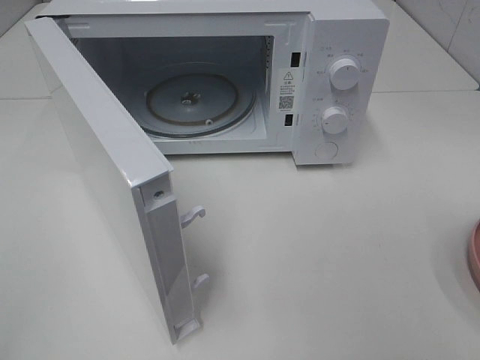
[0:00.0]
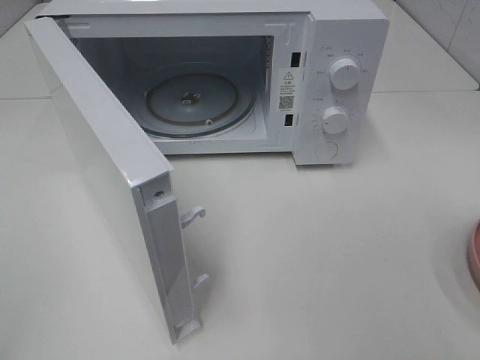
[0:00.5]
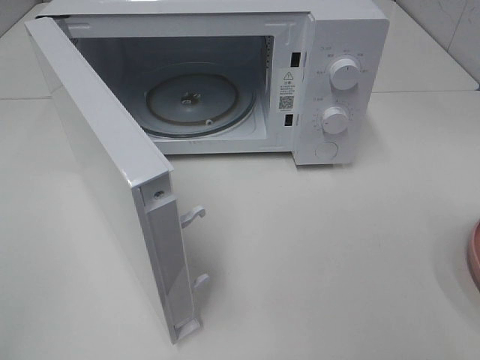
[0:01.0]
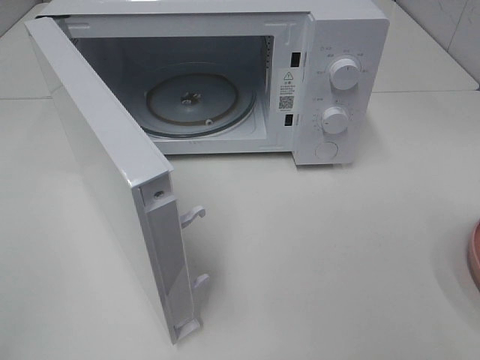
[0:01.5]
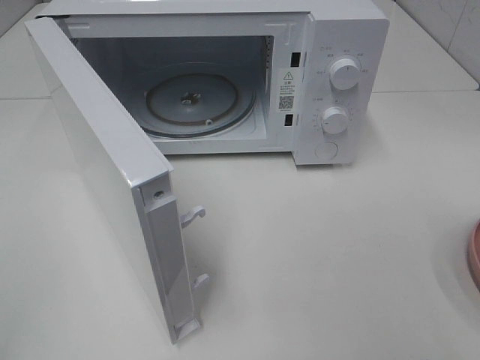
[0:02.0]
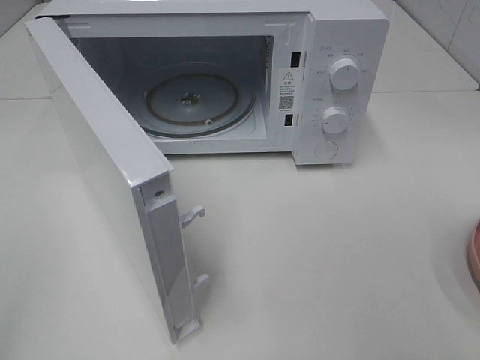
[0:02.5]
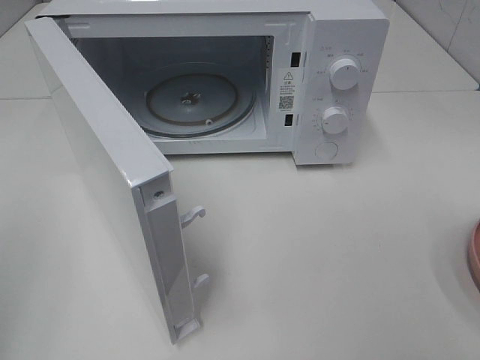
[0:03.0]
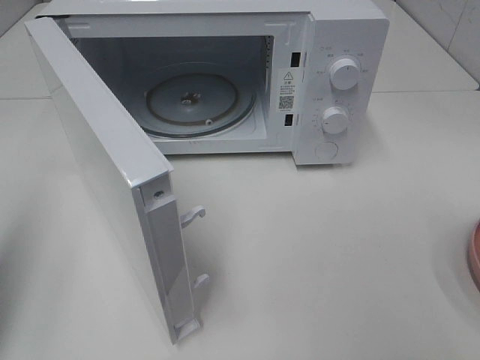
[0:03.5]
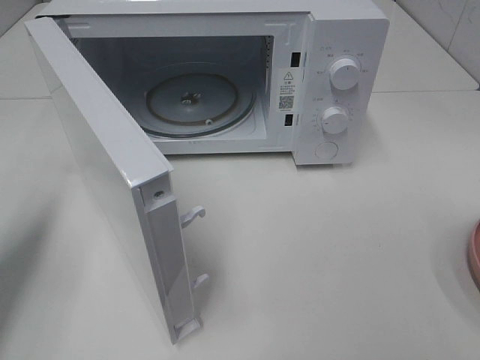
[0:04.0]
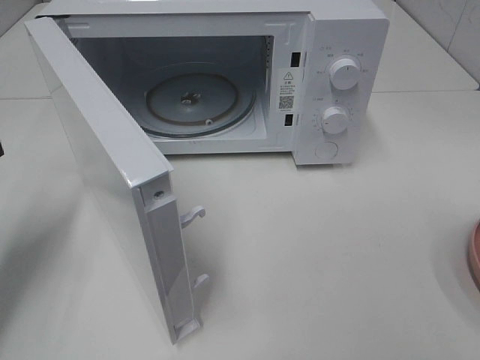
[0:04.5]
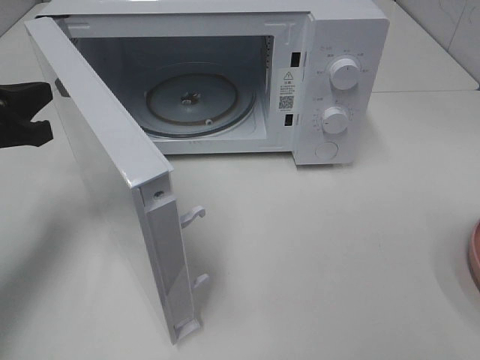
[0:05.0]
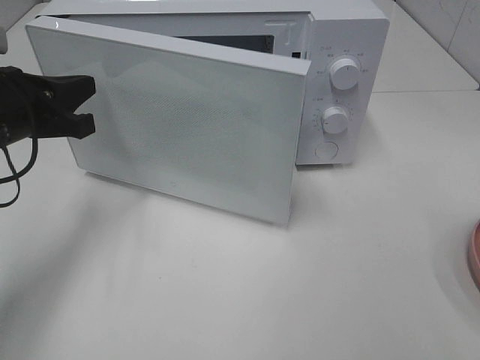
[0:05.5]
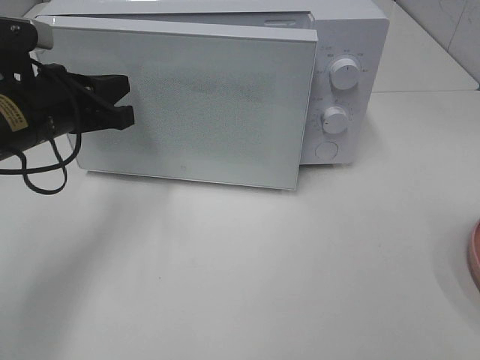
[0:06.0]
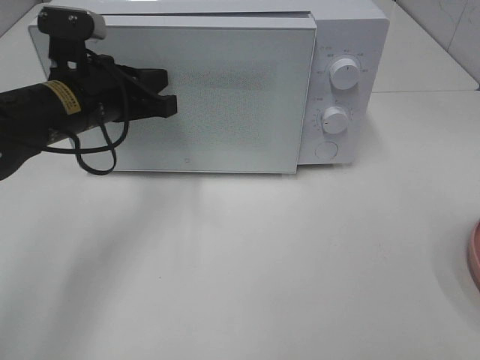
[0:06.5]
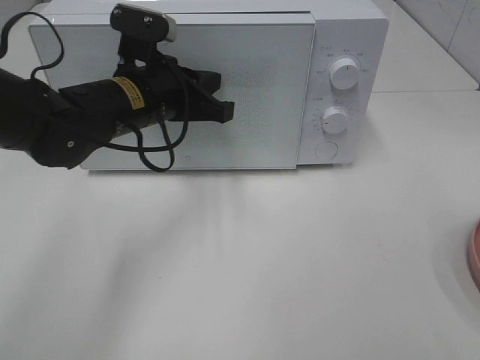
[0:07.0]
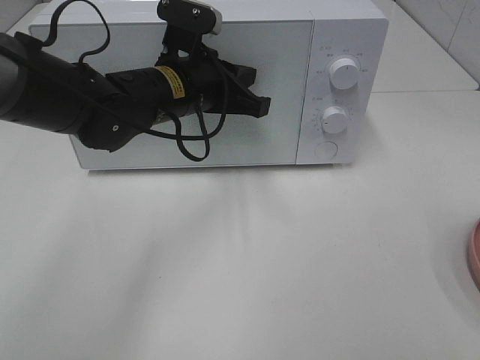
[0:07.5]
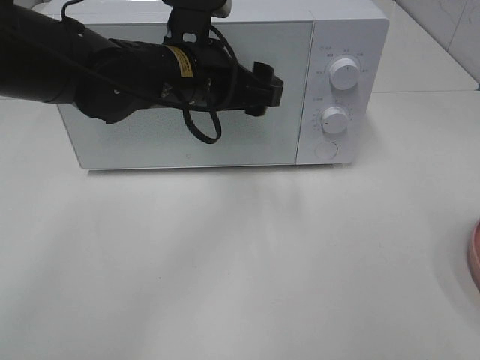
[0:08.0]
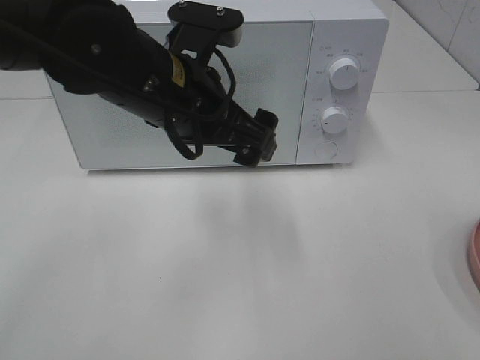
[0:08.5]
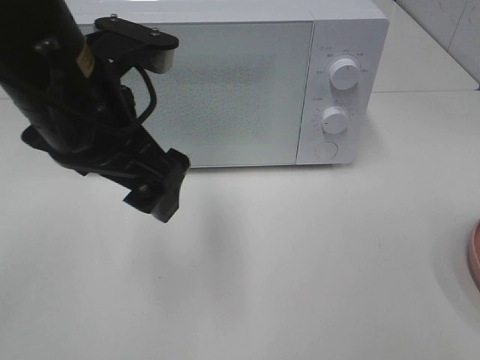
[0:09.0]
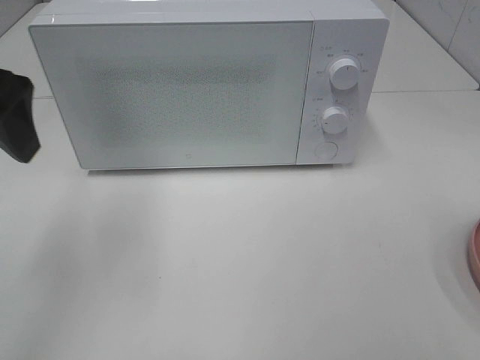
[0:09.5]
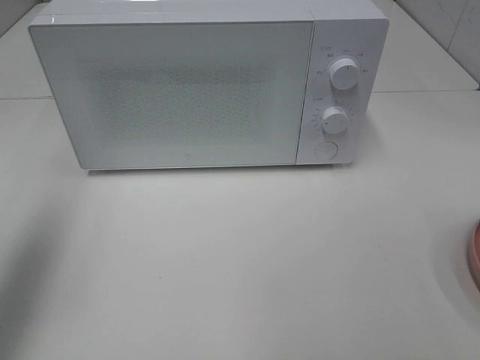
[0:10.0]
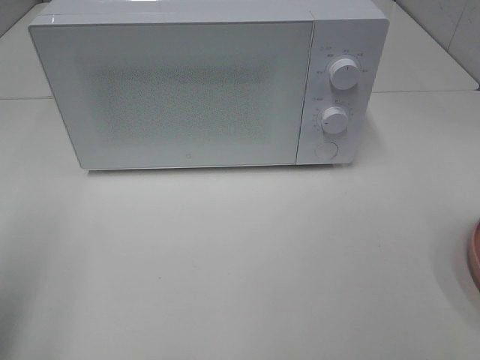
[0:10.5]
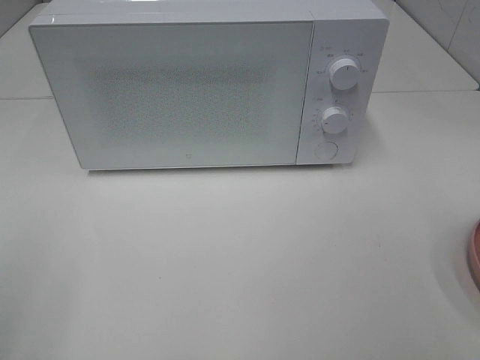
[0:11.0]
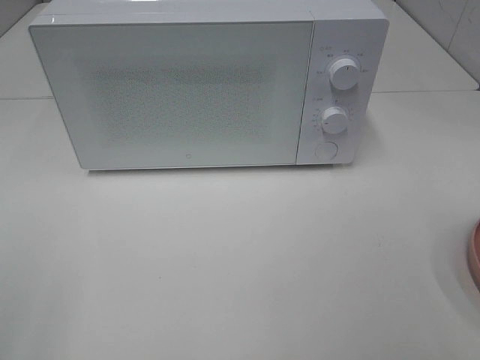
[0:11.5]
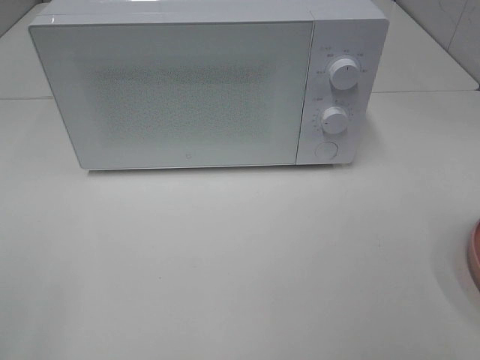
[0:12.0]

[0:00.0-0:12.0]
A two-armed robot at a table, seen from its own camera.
Task of the whole recording: Heat the burger.
Step, 0:00.0 to 0:07.0: Left hand: close the microwave door.
0:02.0 to 0:04.0: The left gripper moves forward, roughly 20 cm, and closes.
0:04.0 to 0:06.0: The left gripper goes approximately 15 cm to the right and forward.
0:06.0 to 0:08.0: The left gripper is displaced to the right by some 15 cm, and opens.
0:08.0 to 0:10.0: The left gripper travels to the left, backward and upward by roughly 30 cm.
0:10.0 to 0:12.0: The left gripper shifts about 20 cm backward.

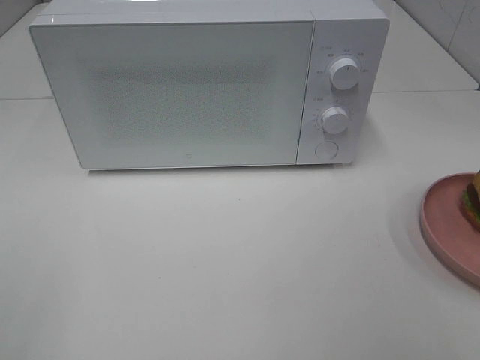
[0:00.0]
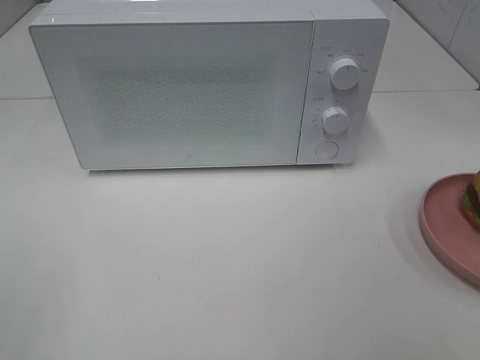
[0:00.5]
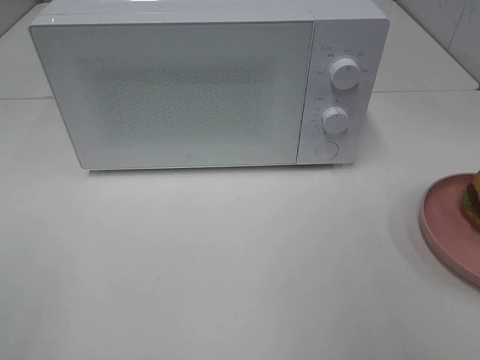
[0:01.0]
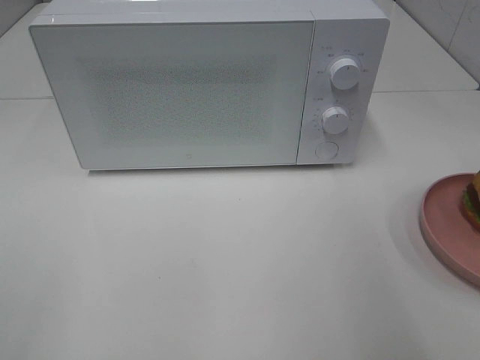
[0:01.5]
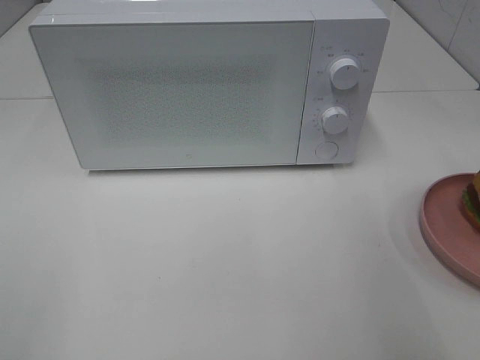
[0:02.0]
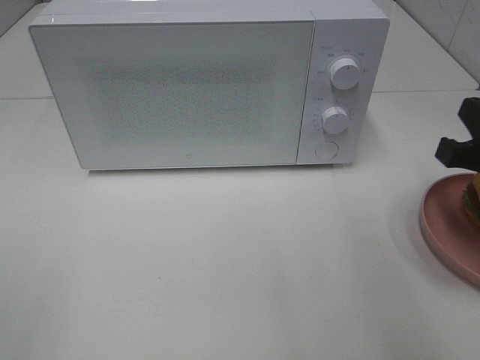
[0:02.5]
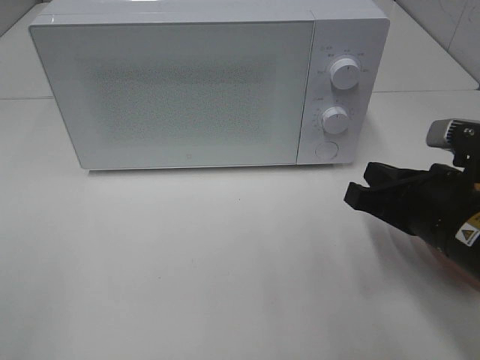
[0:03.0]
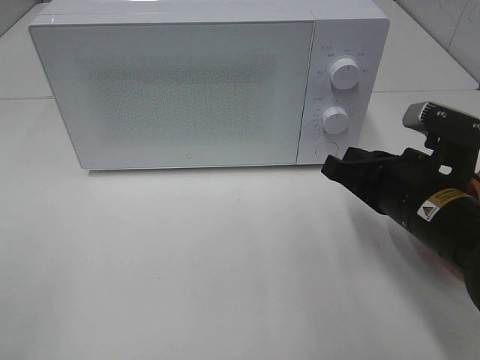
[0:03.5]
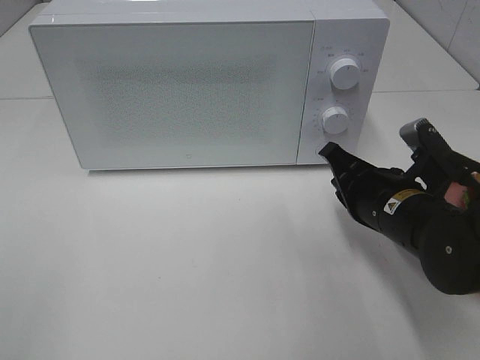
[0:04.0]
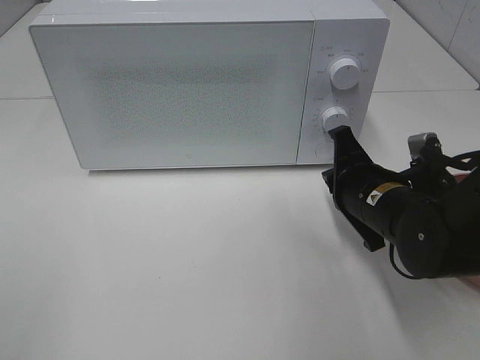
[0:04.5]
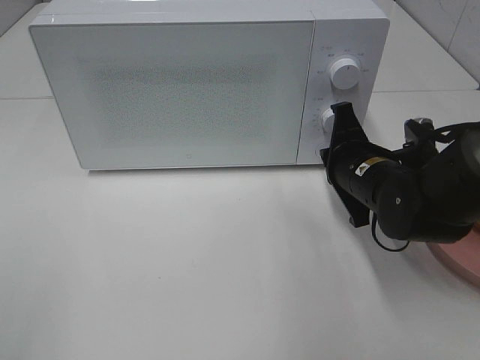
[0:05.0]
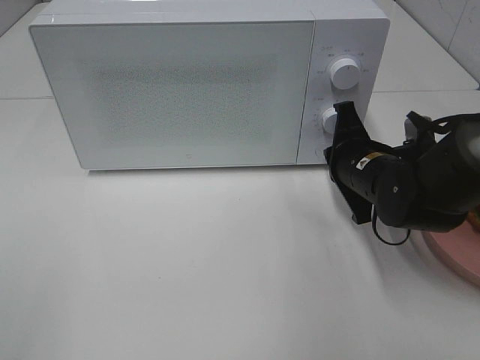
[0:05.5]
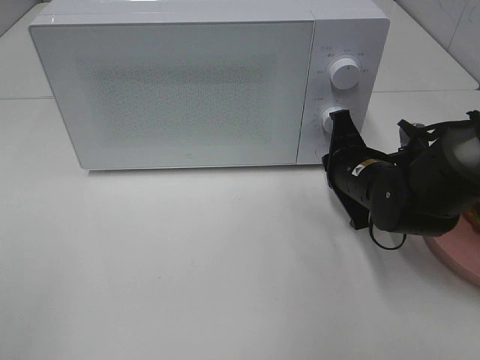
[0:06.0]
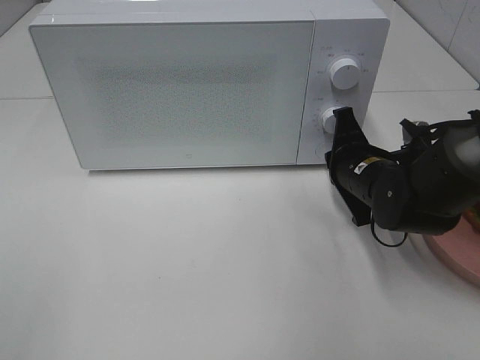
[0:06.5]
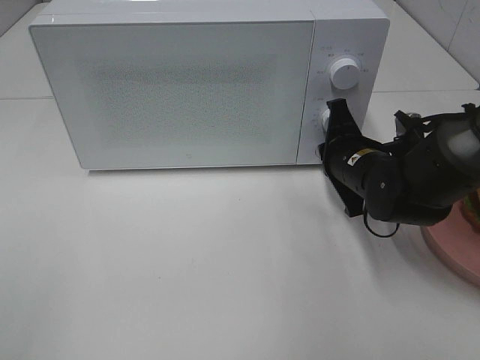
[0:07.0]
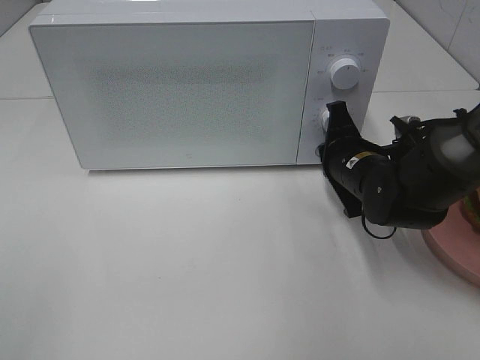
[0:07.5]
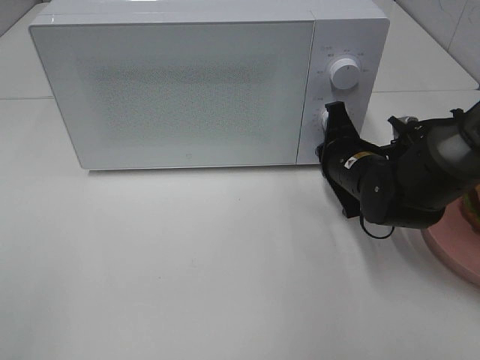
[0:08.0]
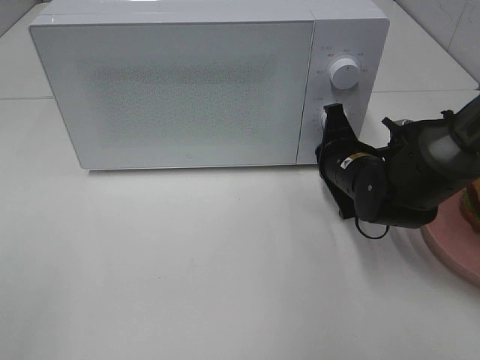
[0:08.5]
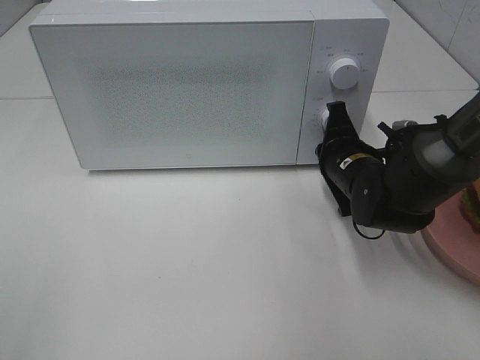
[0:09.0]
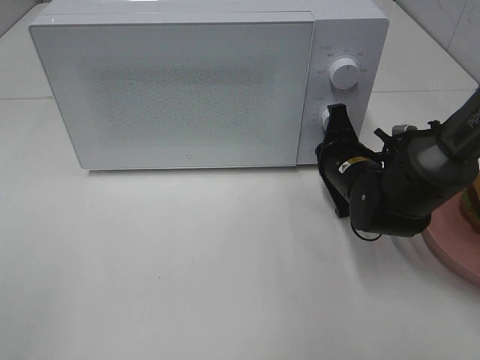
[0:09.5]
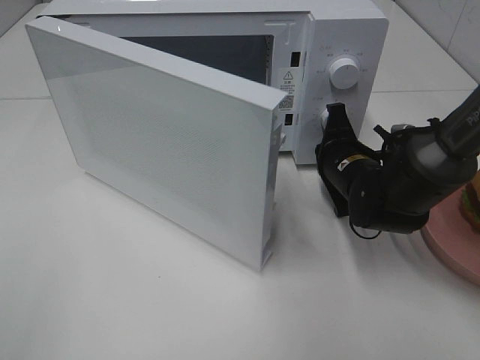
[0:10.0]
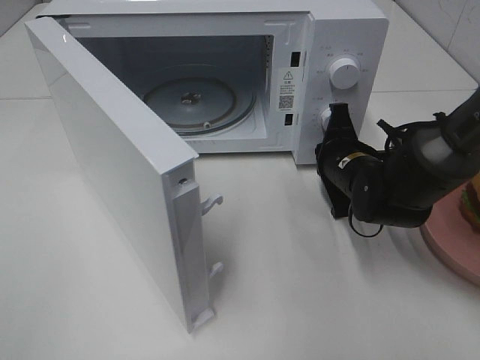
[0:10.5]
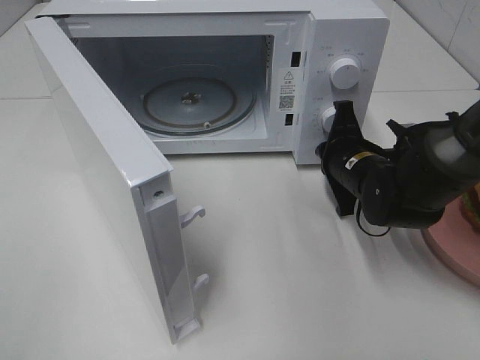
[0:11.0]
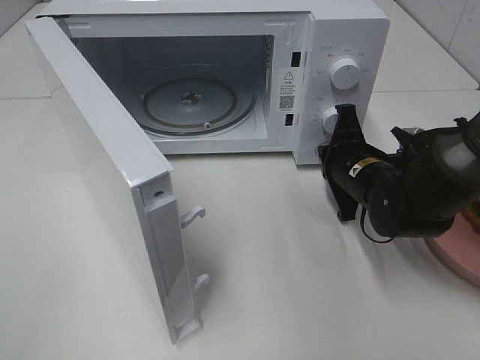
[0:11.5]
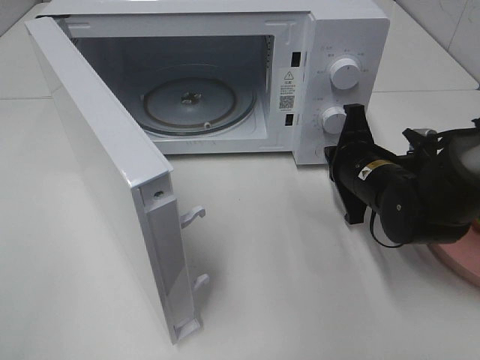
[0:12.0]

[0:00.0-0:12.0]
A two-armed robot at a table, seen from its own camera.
Task of the whole recording: Heat the burger.
Step, 0:00.0 to 0:11.5: Right hand: press the switch.
0:02.0 to 0:04.0: The right gripper goes approximately 20 cm downward, to the left and forward.
0:04.0 to 0:06.0: The right gripper goes about 5 cm forward.
0:06.0 to 0:10.0: The grippers move only a little.

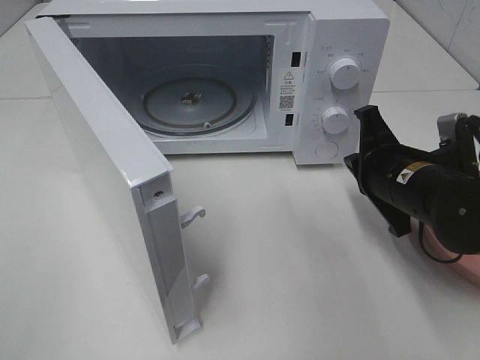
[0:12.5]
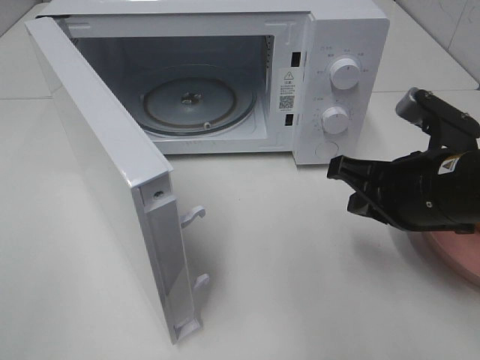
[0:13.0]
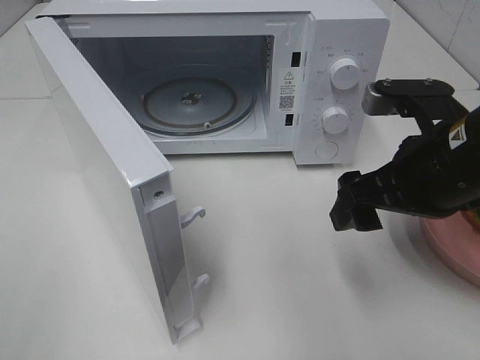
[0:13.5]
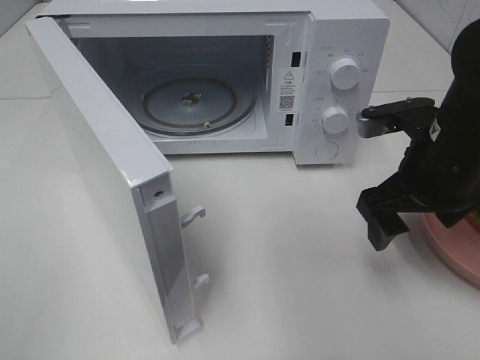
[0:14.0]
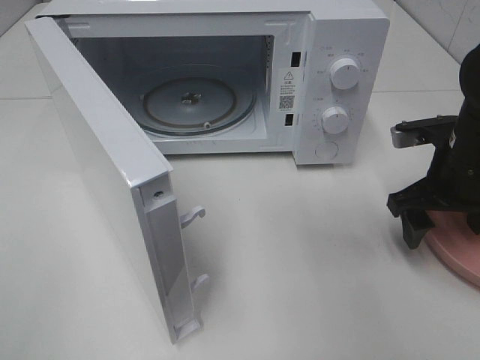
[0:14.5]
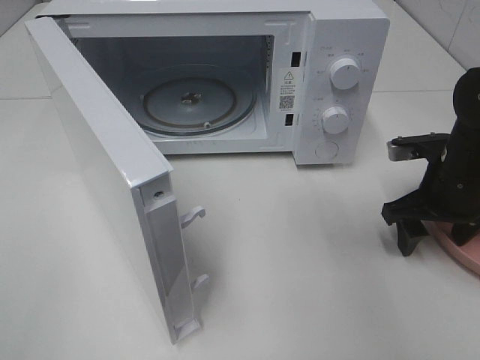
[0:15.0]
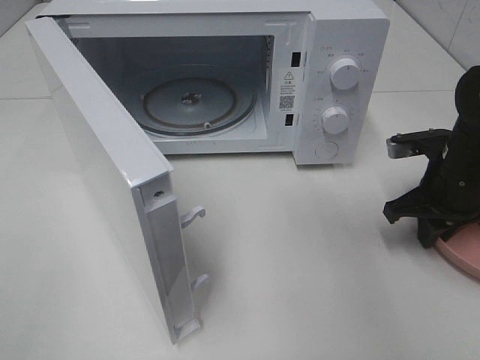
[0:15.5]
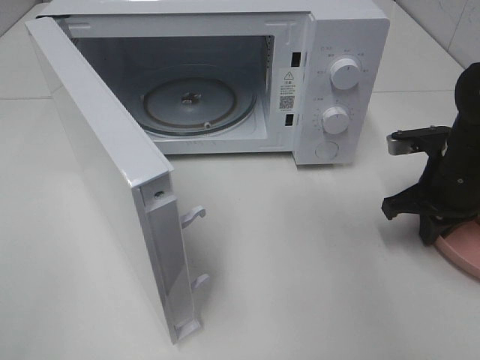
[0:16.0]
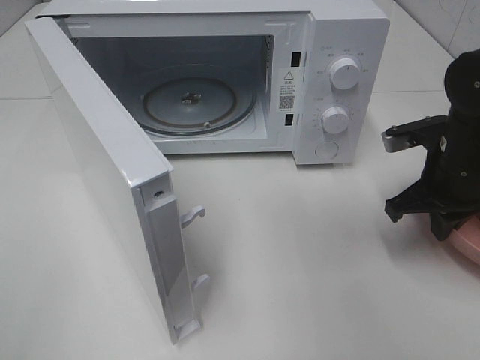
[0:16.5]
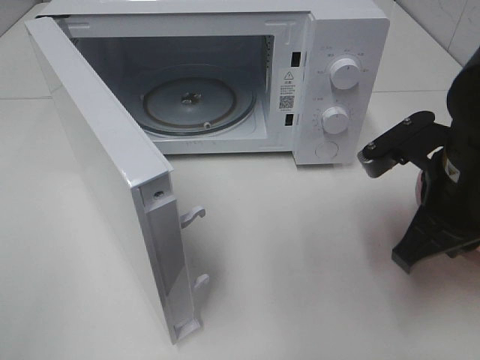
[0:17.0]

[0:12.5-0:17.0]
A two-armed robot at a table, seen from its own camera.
Task of the whole recording: Heat the burger.
Step, 0:12.5 to 0:16.0: Right hand: grab the plate with the hamburger.
0:12.5 to 0:14.5: The right gripper shifts some 5 cm to the right, goes upward and returns, some 10 cm each way, and opens its fingers.
0:14.5 to 0:17.0: The right gripper is displaced backward and to the left by roughly 10 cm, and closes its fingers.
